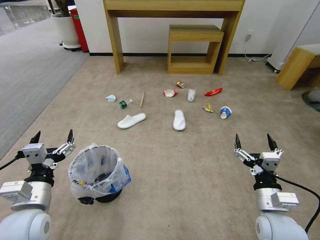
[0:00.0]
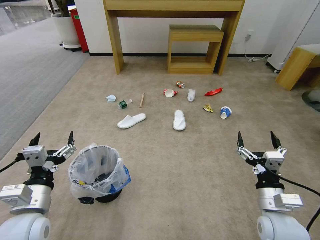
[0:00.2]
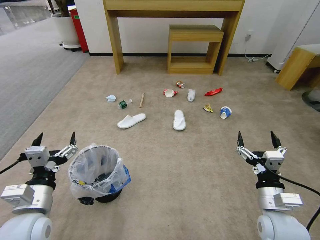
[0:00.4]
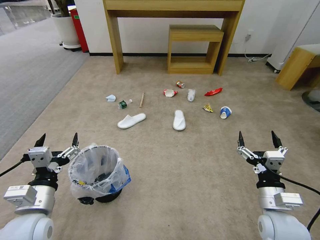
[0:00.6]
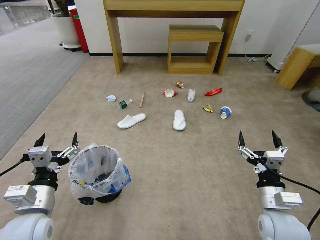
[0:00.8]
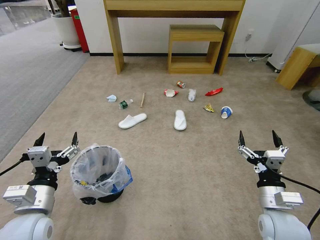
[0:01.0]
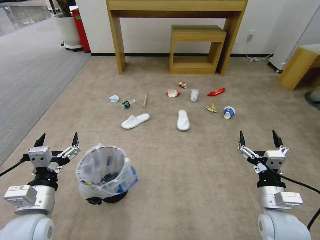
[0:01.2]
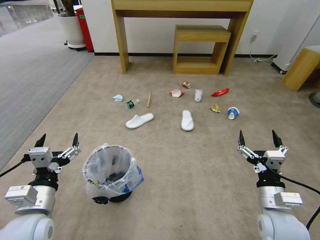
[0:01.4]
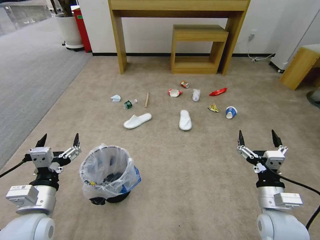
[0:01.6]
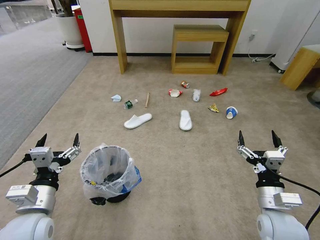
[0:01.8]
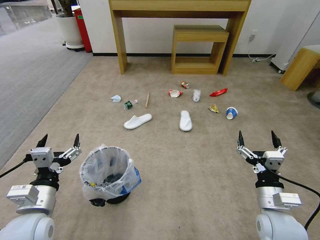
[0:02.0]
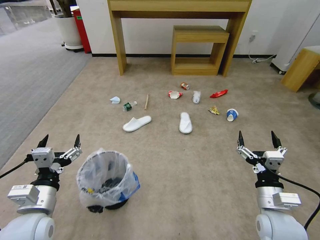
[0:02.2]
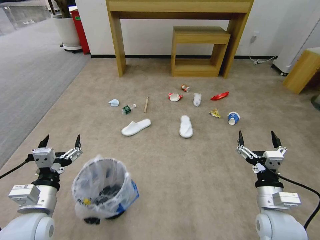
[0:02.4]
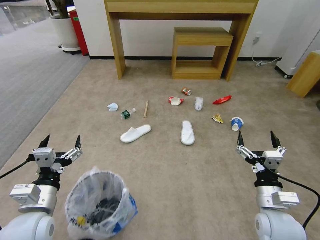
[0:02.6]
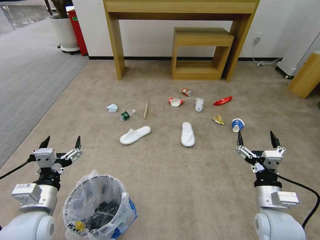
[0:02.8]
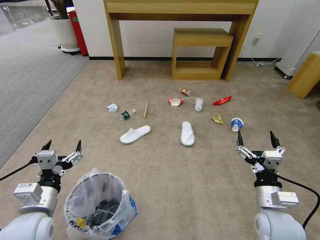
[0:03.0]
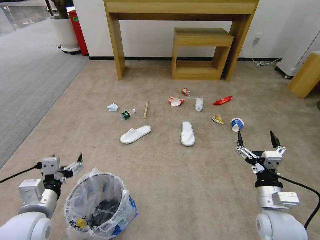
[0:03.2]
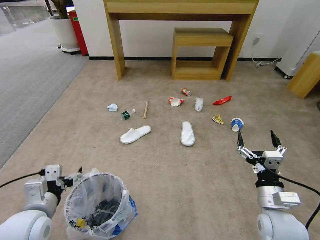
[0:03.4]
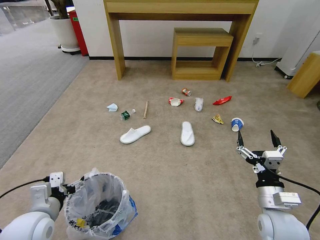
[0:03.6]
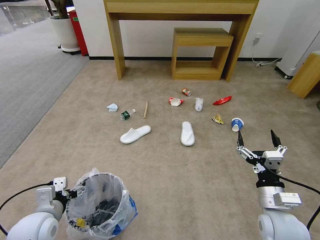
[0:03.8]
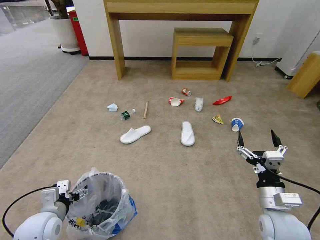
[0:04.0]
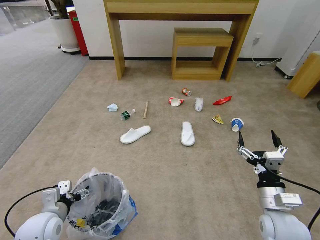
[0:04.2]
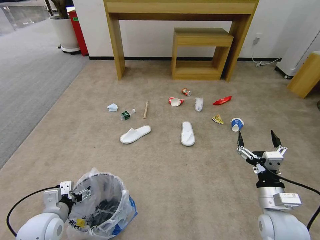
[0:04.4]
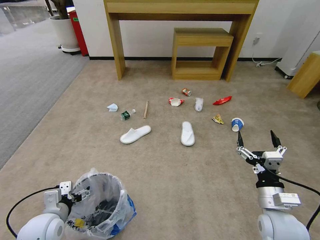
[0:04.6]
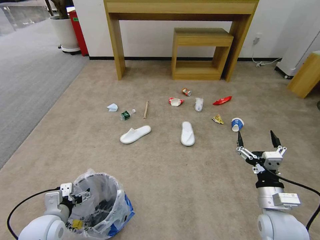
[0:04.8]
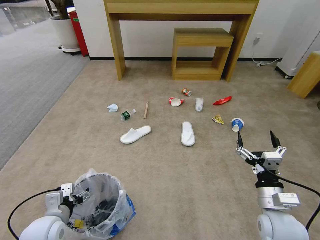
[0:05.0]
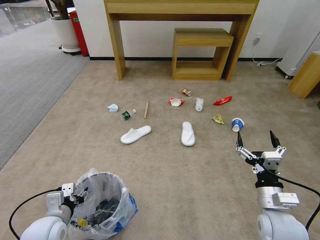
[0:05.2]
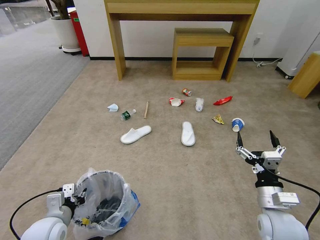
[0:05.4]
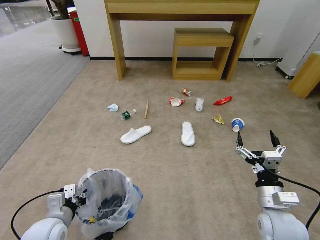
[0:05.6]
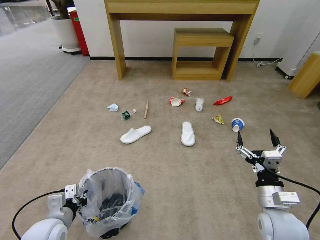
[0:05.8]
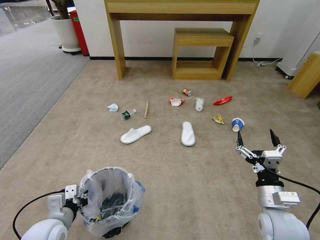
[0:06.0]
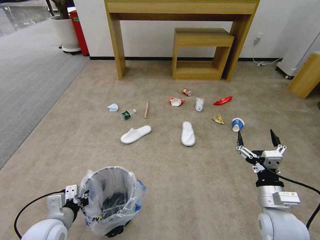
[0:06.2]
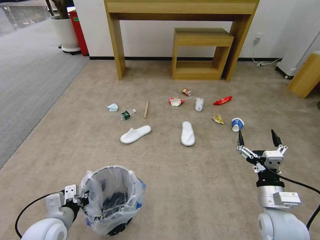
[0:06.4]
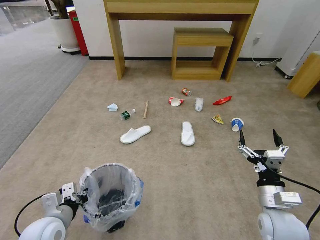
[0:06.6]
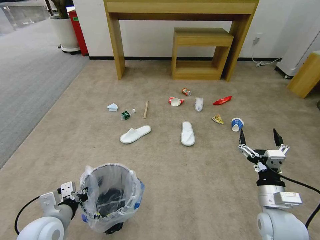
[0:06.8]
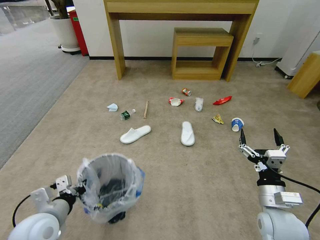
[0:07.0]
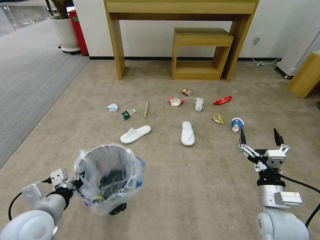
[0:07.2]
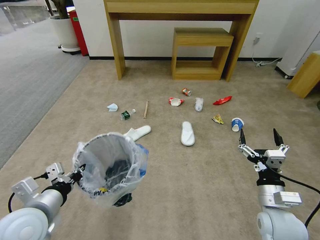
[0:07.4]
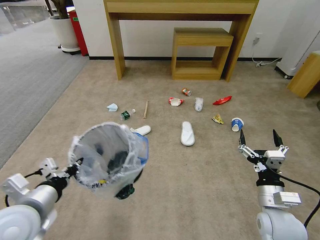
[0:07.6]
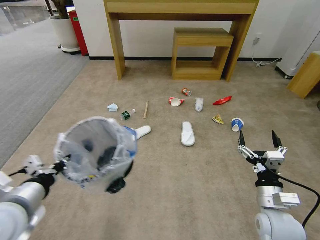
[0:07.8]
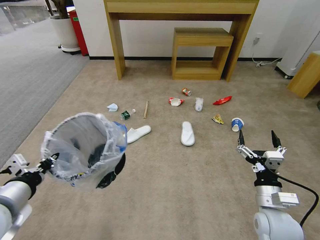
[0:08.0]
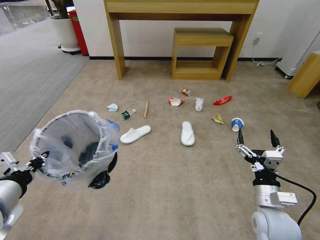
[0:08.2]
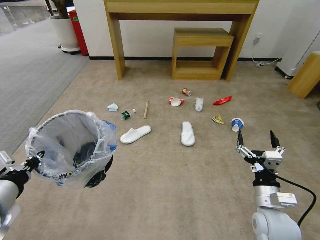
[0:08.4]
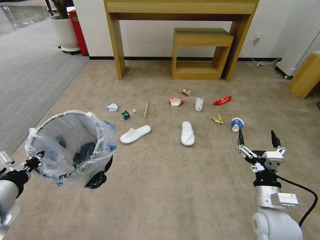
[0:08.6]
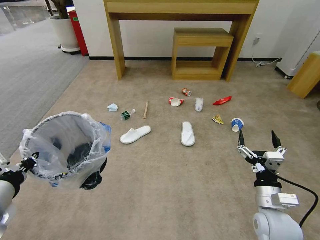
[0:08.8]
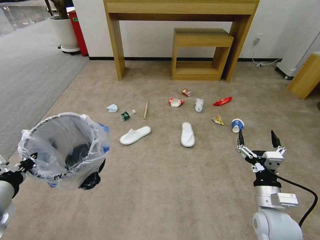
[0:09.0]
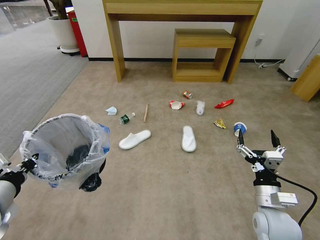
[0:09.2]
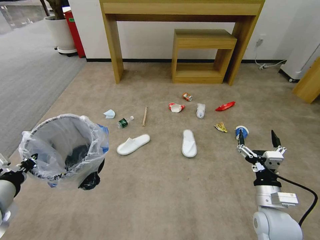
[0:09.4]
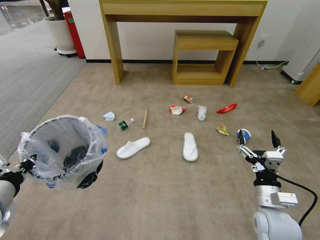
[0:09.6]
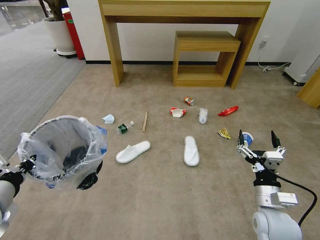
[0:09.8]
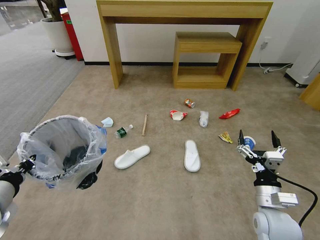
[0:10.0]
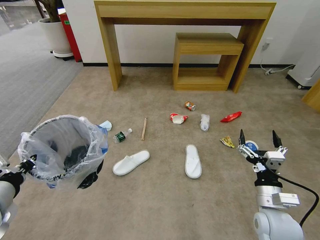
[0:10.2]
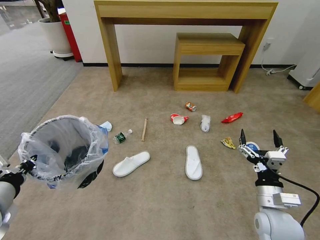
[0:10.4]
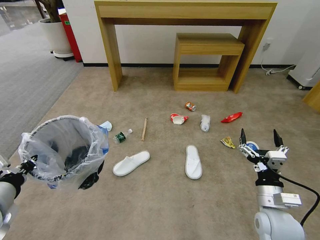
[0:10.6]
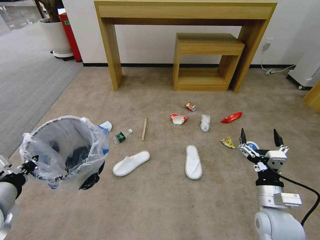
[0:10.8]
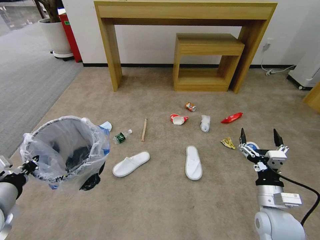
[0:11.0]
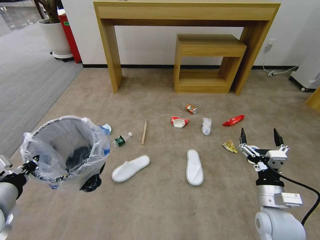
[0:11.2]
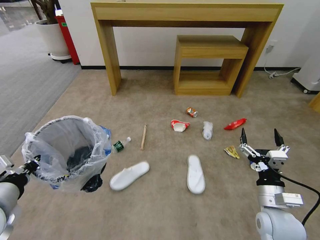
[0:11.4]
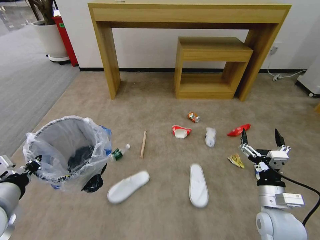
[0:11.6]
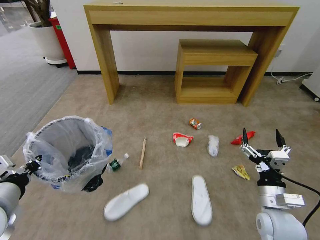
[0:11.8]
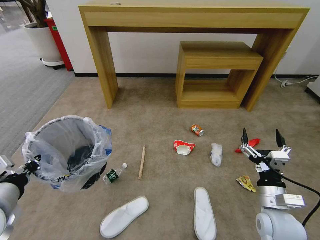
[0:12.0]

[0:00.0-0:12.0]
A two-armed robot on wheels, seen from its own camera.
Task of the whole recording: Pick up the trash bin and place the garbage on the floor into it.
0:03.0 to 0:04.4: The left gripper heads downward, covering roughly 10 cm.
0:04.4 to 0:06.0: The left gripper closes.
0:06.0 to 0:07.6: The left gripper goes roughly 15 cm upward.
0:07.6 to 0:09.0: The left gripper travels to the left by approximately 5 cm.

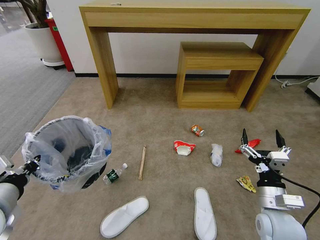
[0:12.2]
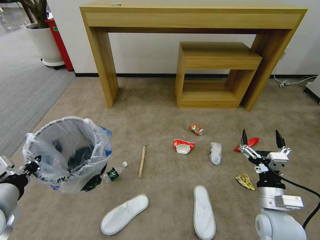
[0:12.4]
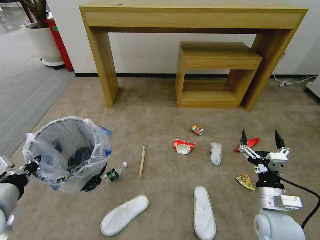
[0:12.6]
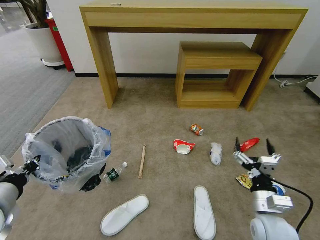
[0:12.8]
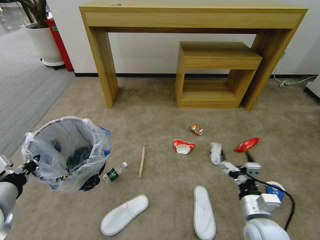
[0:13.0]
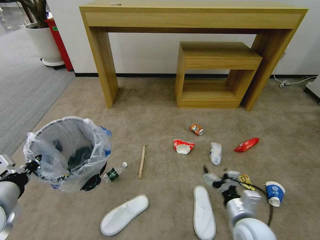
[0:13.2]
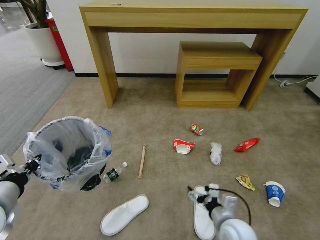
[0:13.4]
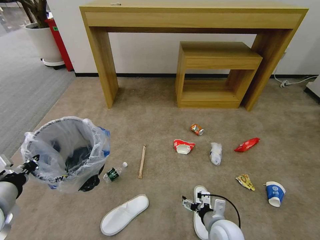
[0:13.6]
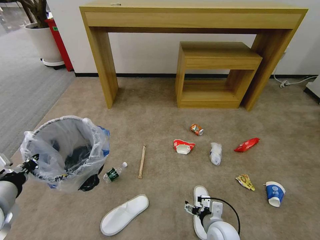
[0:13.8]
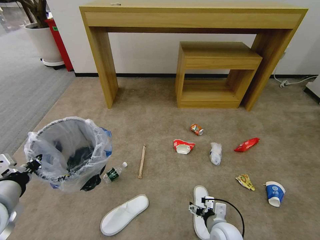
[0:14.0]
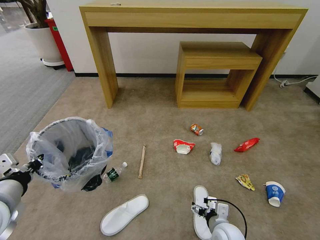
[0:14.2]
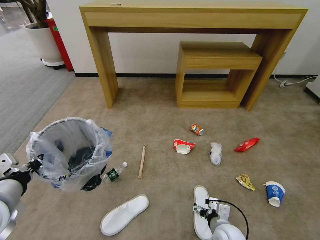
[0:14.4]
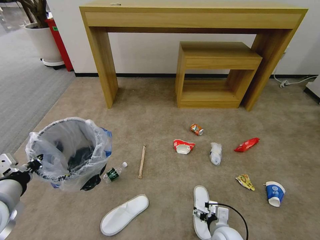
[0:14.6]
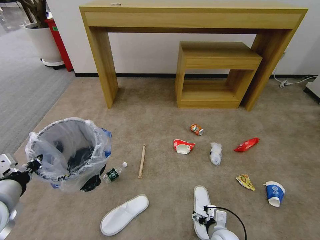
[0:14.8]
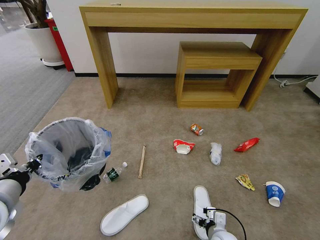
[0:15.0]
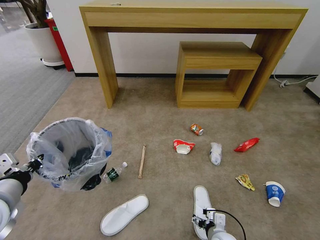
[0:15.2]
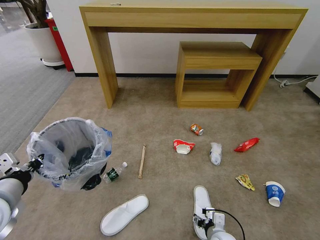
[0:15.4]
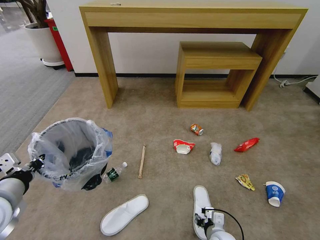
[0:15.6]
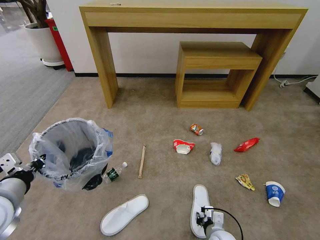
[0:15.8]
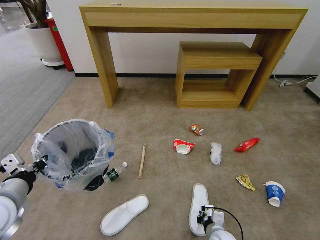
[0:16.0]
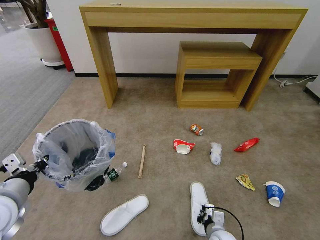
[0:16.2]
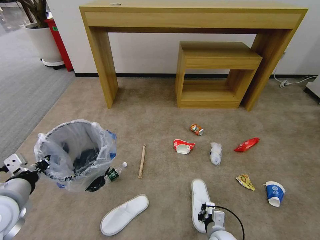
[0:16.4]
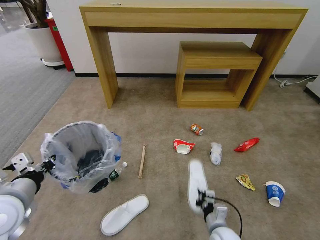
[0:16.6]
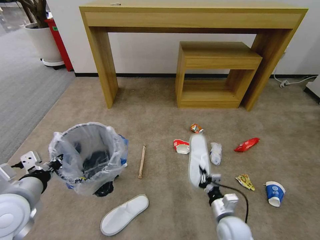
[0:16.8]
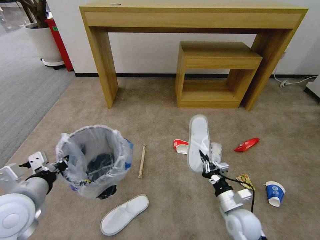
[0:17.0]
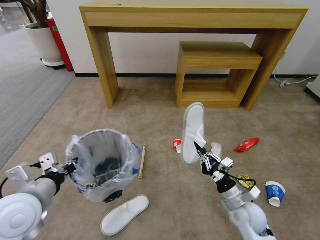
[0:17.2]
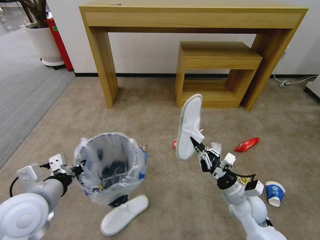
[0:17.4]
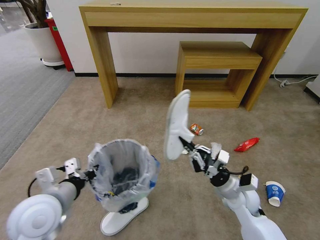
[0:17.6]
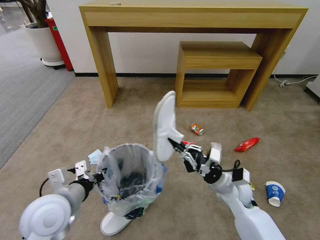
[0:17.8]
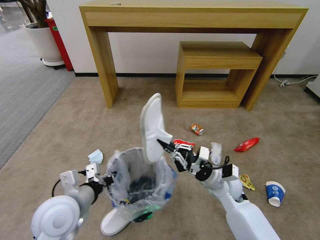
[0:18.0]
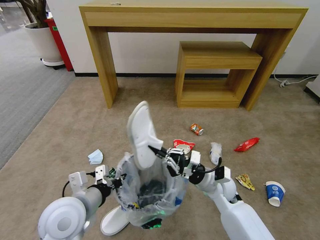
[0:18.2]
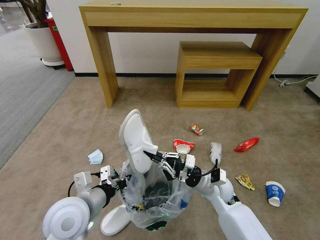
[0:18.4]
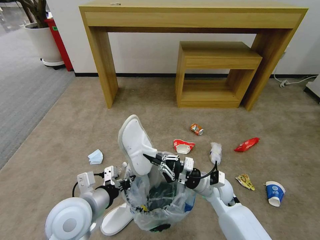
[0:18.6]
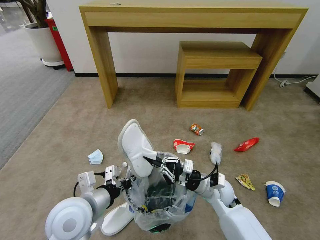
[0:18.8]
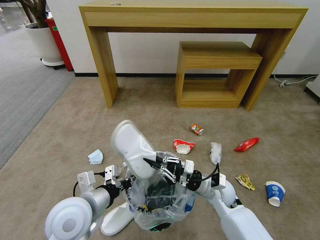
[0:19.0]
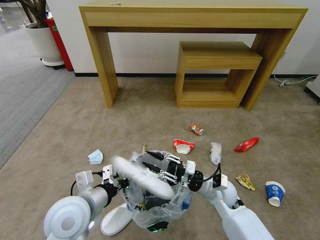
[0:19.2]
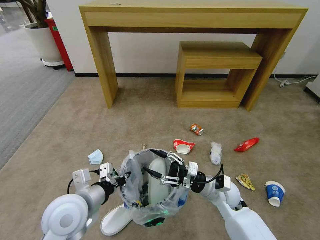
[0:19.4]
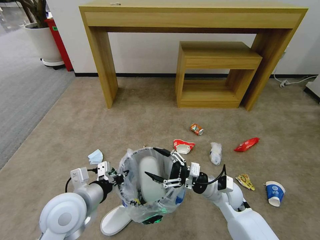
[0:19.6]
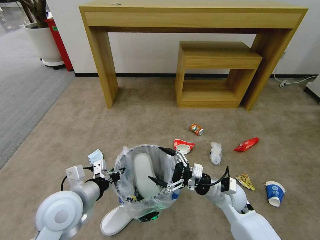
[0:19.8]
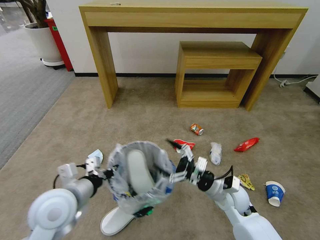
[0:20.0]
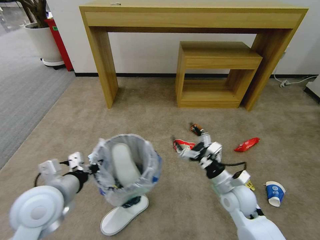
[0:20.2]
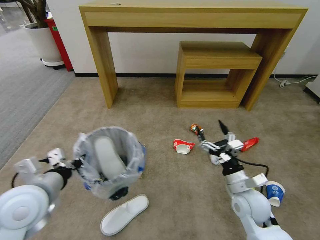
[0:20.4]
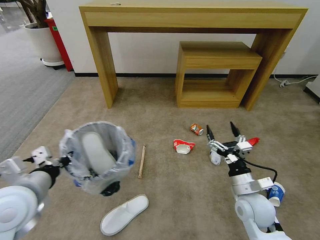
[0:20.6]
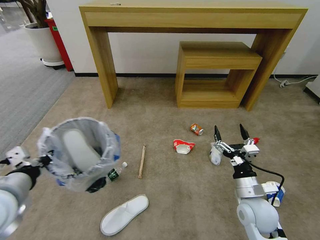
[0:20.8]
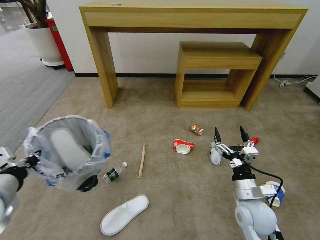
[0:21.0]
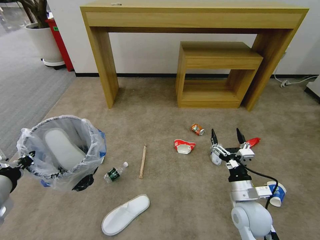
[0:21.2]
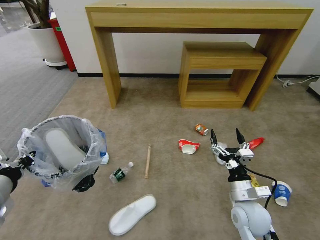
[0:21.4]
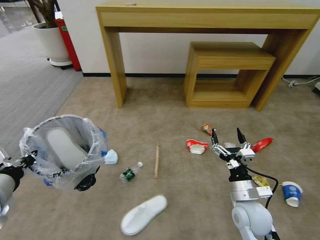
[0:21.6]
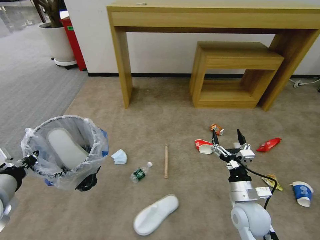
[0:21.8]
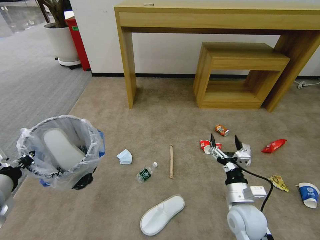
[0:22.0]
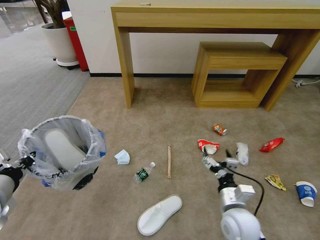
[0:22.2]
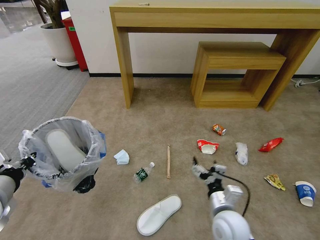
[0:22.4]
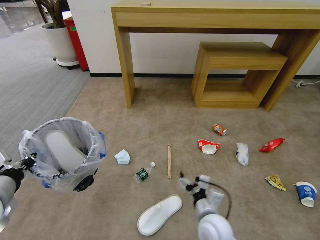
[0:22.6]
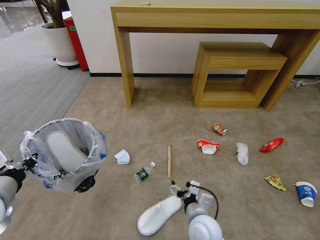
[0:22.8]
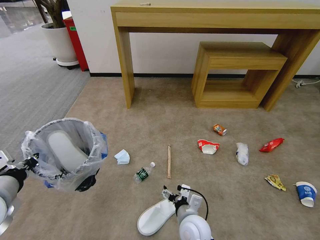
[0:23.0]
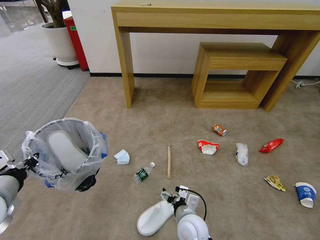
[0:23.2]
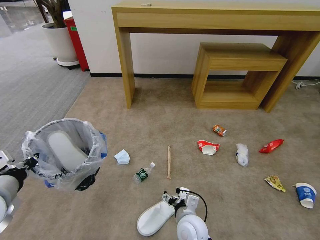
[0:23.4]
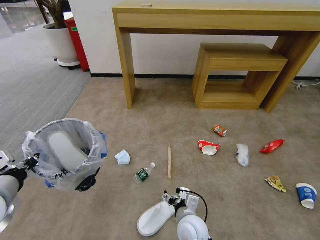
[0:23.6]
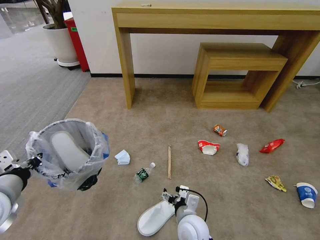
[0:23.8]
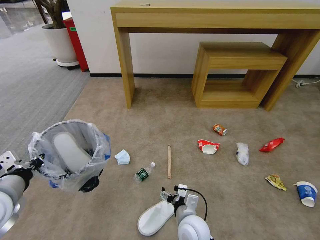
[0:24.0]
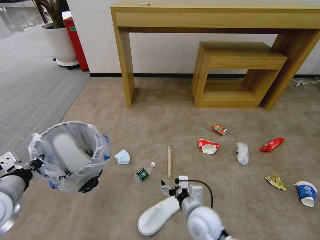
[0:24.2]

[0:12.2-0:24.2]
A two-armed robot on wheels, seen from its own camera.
Task of the whole recording: Pick up the trash bin and place the garbage on the floor into it.
0:12.2 to 0:13.8: The right gripper heads downward and to the left, covering about 15 cm.
0:13.8 to 0:15.2: The right gripper is displaced downward by some 5 cm.
0:15.2 to 0:16.6: The right gripper closes up.
0:16.6 to 0:18.2: The right gripper is displaced forward and upward by roughly 20 cm, while the left gripper heads to the right, covering roughly 10 cm.
0:18.2 to 0:19.8: The right gripper opens up.
0:19.8 to 0:21.2: The left gripper travels to the left and upward by approximately 15 cm. The right gripper shifts roughly 5 cm backward.
0:21.2 to 0:22.6: The right gripper moves to the left, approximately 10 cm.
